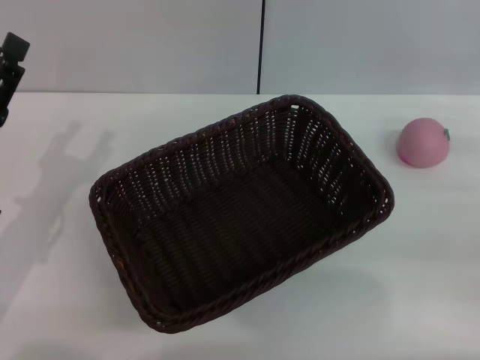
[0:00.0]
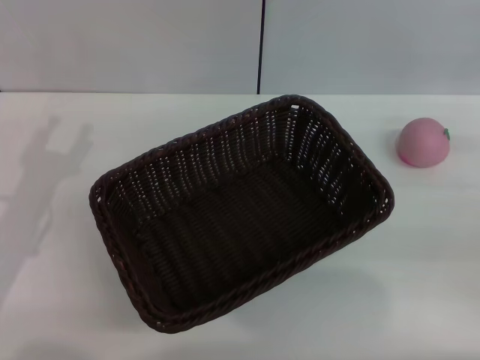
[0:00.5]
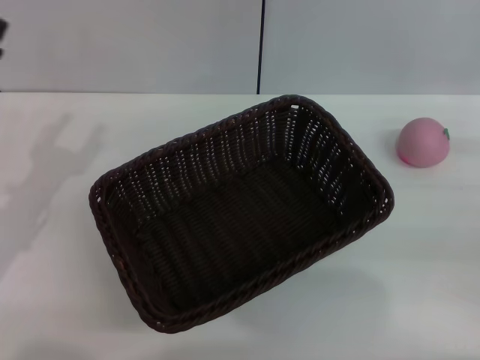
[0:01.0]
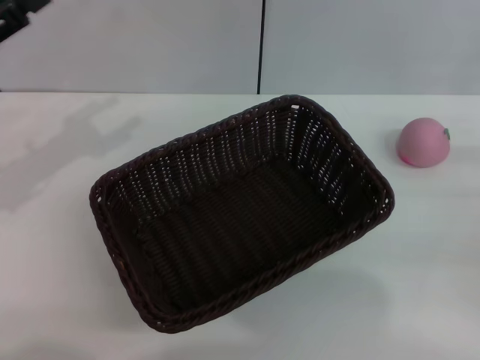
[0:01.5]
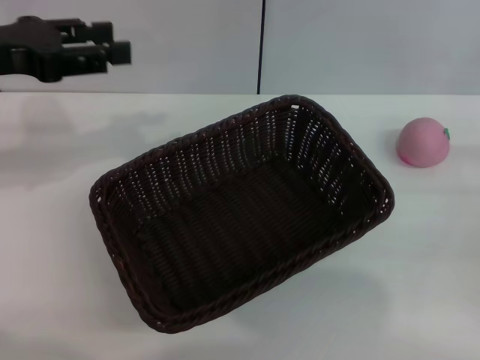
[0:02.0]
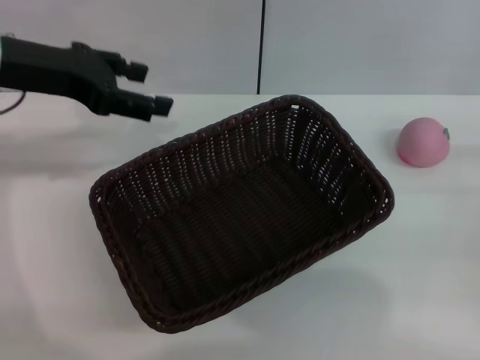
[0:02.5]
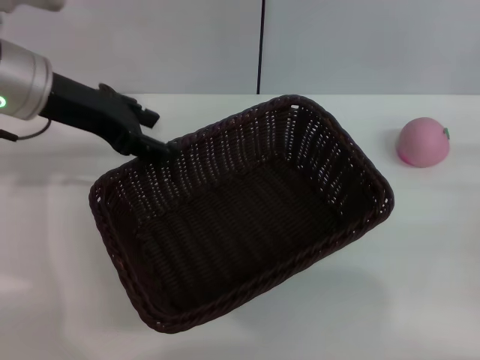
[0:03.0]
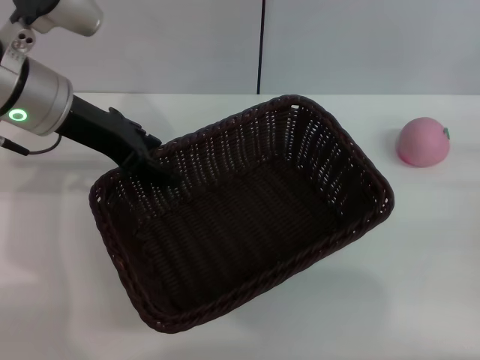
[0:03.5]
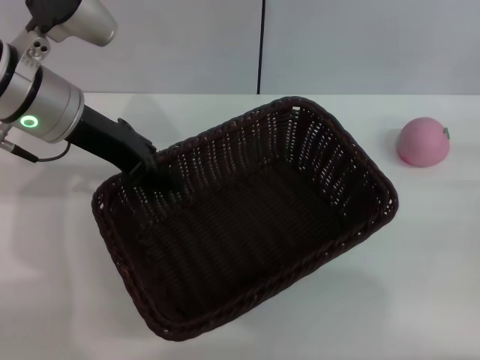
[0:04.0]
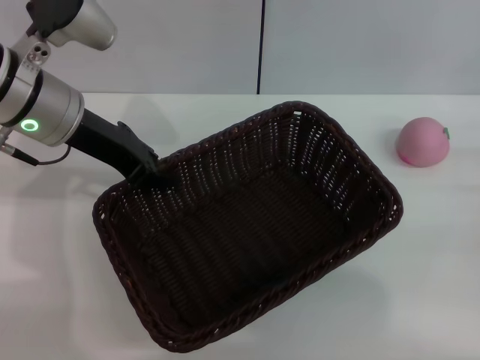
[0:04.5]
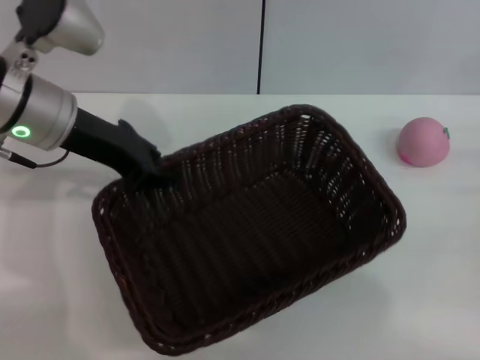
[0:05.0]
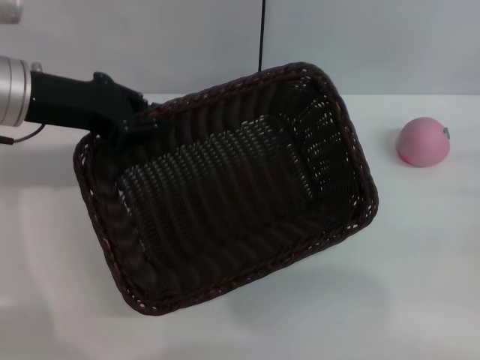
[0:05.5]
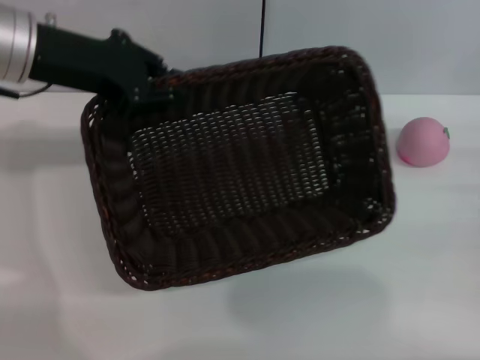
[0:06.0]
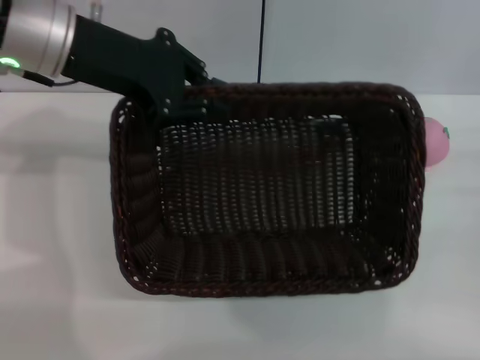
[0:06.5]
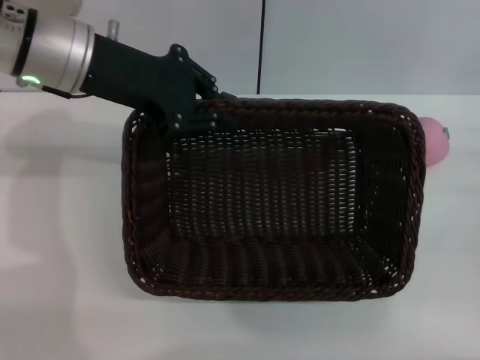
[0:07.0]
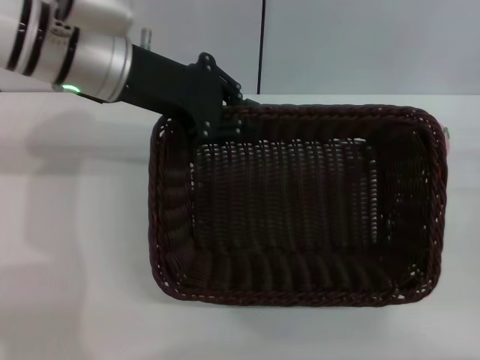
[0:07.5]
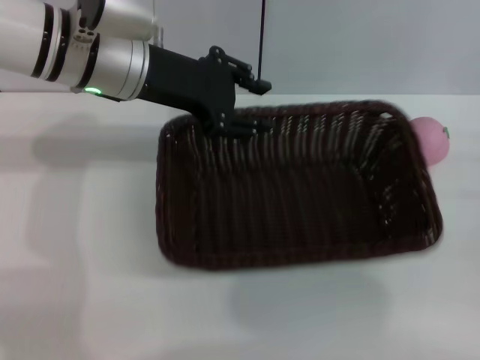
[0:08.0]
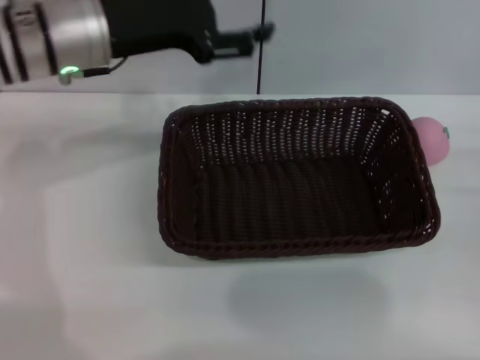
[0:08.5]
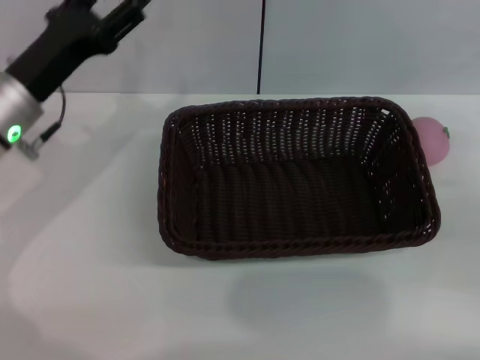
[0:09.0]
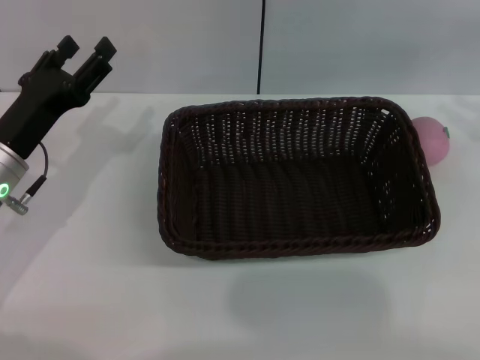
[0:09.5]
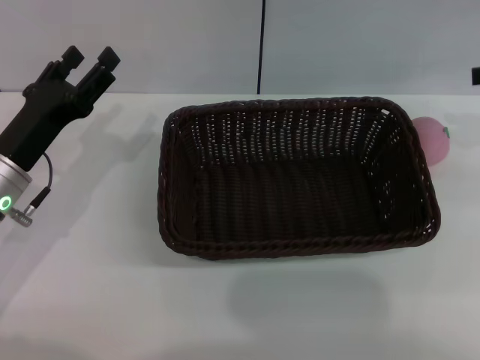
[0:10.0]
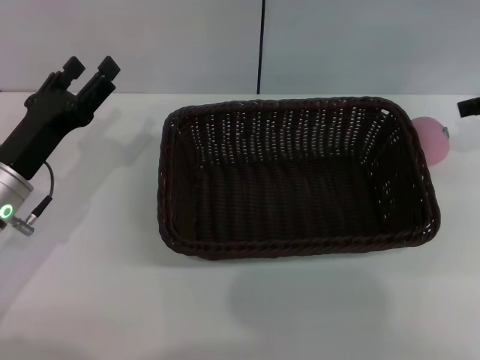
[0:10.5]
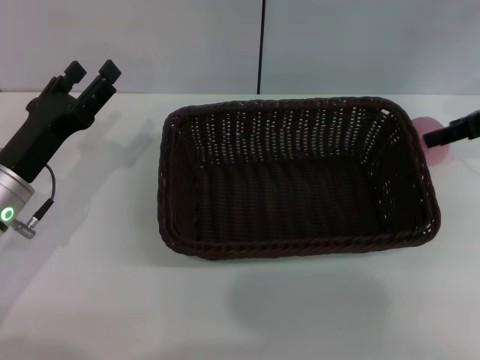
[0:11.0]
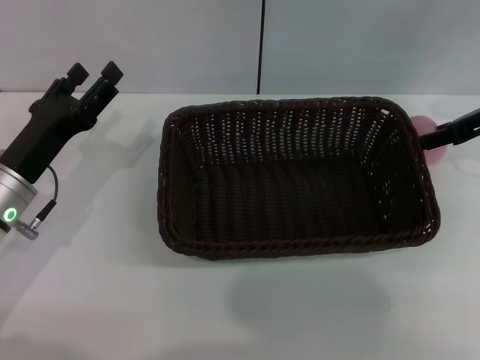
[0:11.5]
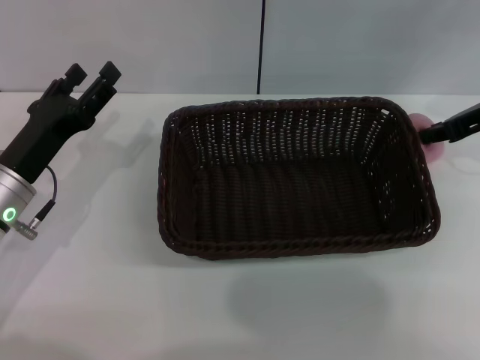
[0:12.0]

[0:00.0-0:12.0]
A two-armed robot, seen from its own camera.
Step, 0:00.0 to 0:05.0: Pick up the dark basket with the left gripper.
0:00.0 to 0:02.0: The left gripper goes roughly 15 cm upward and forward.
0:02.0 to 0:04.0: The left gripper shifts approximately 10 cm to the right.
0:04.0 to 0:06.0: The left gripper changes place by approximately 5 cm, and closes its fingers.
0:06.0 to 0:08.0: The left gripper shifts roughly 10 cm to the right.
0:08.0 to 0:10.0: The right gripper goes approximately 20 cm upward and forward, while the left gripper goes roughly 20 cm downward, to the left and backward, and opens up.
0:10.0 to 0:12.0: The right gripper moves to the left and downward, approximately 10 cm.

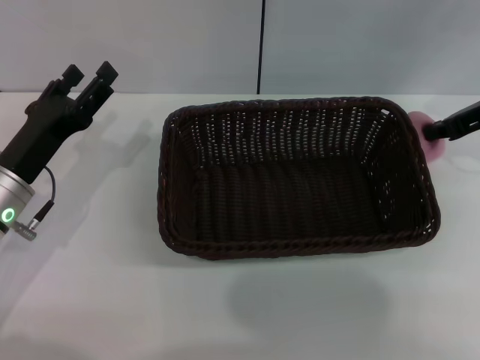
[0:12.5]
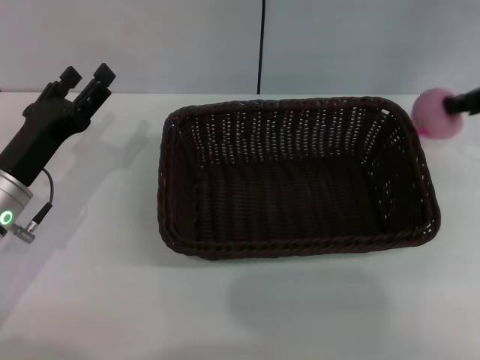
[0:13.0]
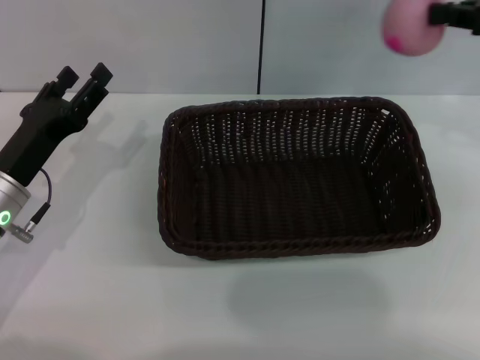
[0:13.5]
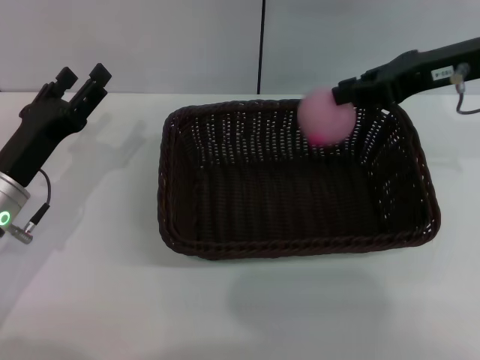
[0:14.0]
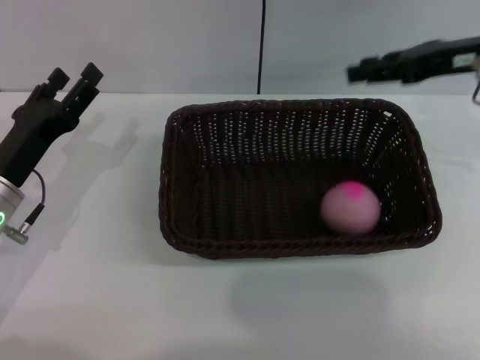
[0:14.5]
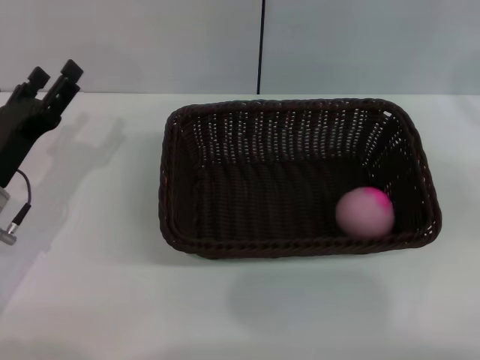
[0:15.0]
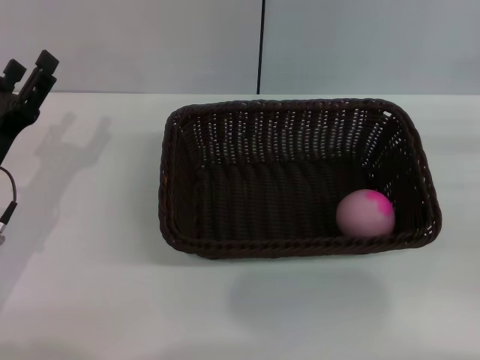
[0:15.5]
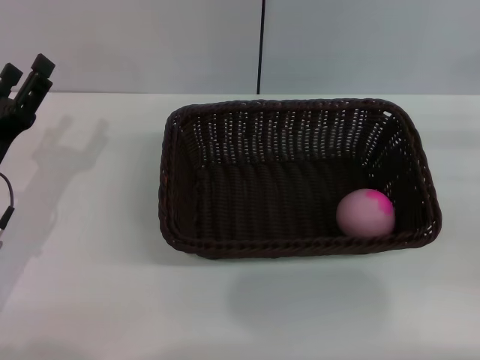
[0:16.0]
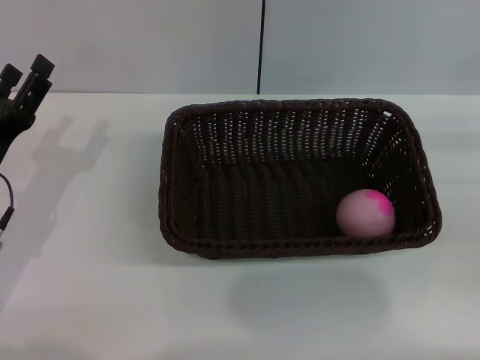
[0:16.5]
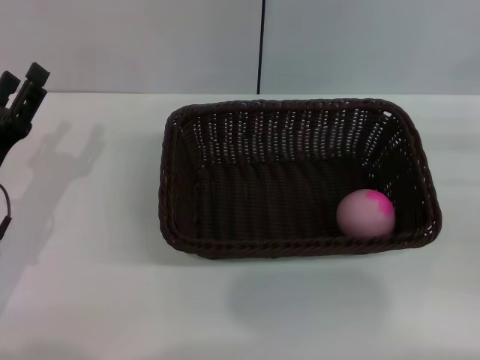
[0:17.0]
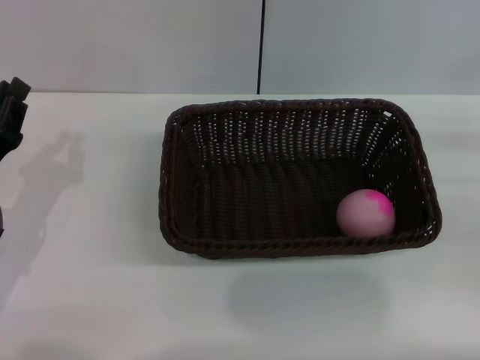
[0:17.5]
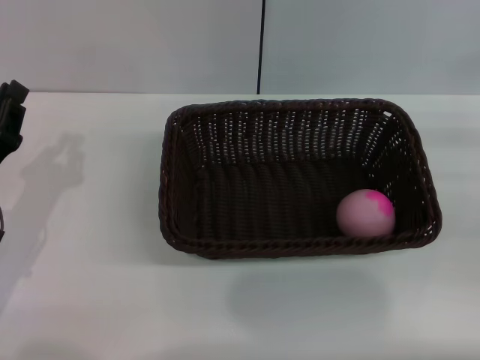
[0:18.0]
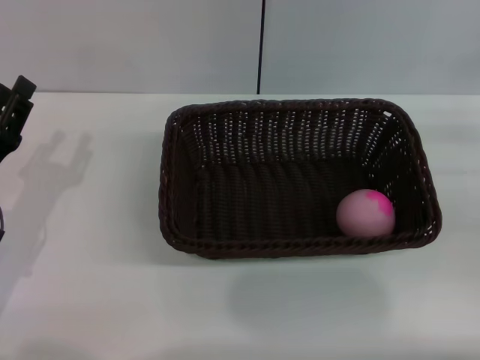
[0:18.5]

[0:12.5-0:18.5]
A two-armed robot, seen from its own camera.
Step, 0:14.0 to 0:14.5: Place the peach into the basket with the left gripper.
0:12.5 to 0:14.5: The right gripper shifts about 5 cm upward, and opens.
0:14.5 to 0:16.5: The right gripper heads to the right, downward and backward, covering some 20 cm.
0:16.5 to 0:18.5: The left gripper closes up.
